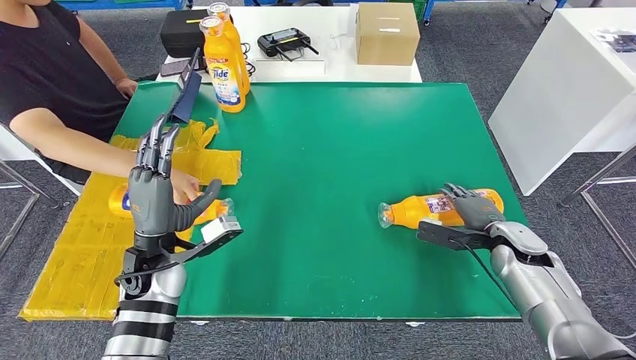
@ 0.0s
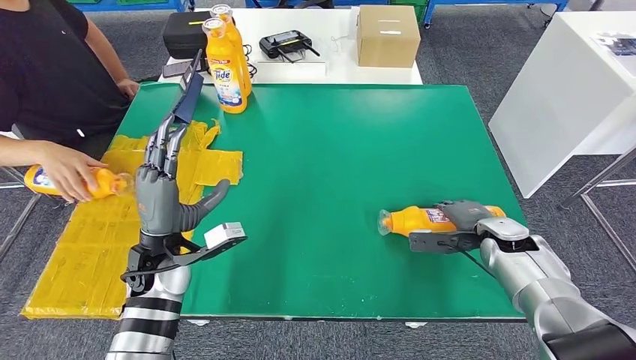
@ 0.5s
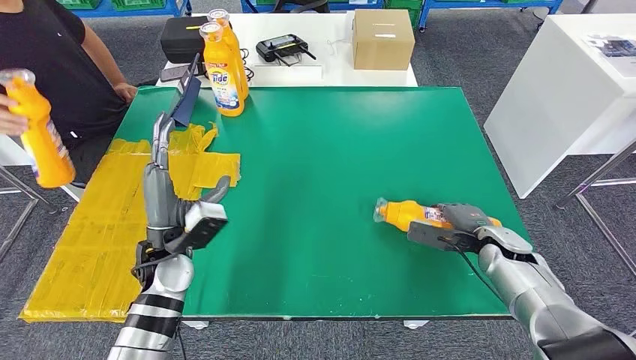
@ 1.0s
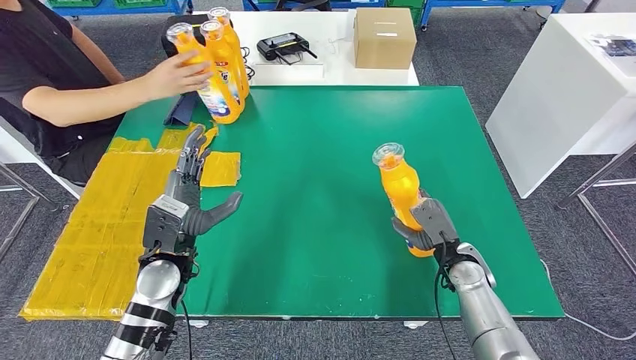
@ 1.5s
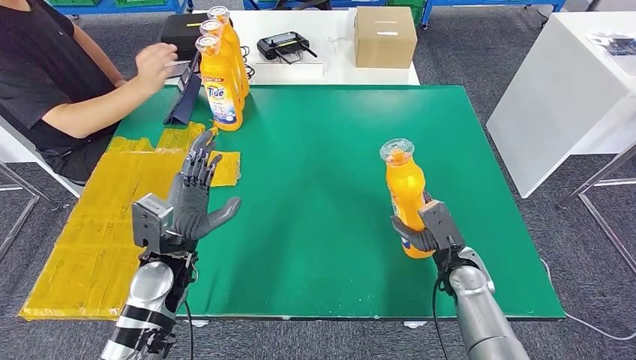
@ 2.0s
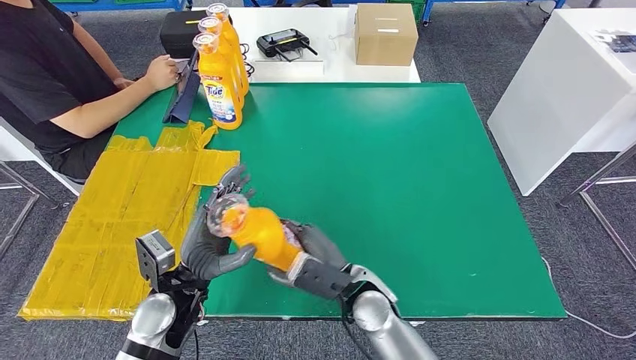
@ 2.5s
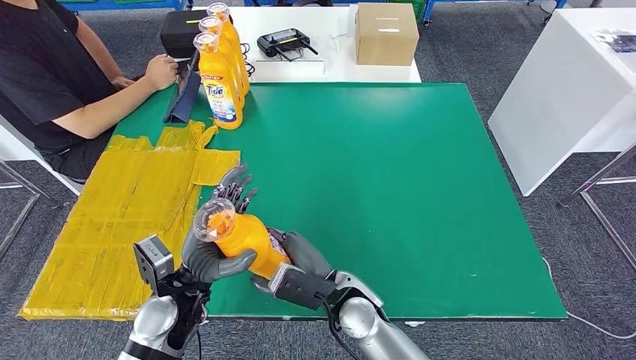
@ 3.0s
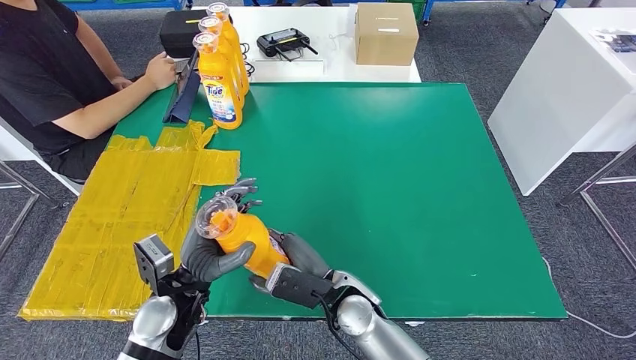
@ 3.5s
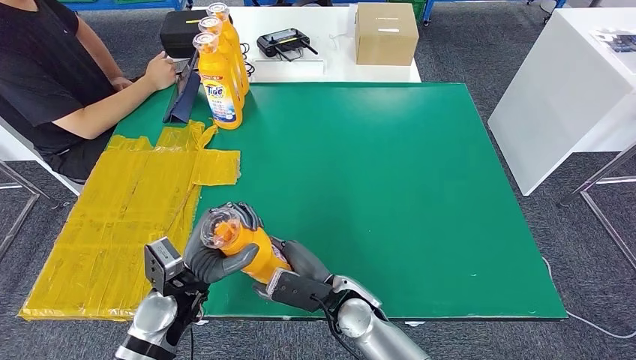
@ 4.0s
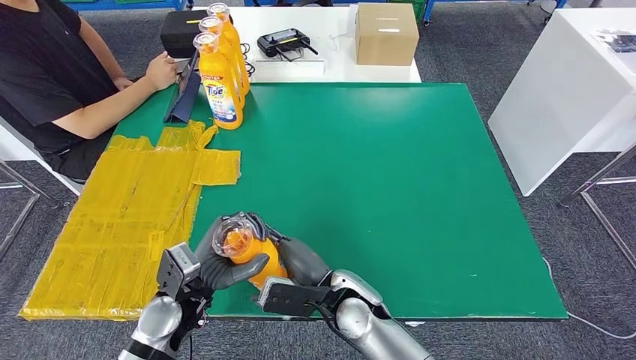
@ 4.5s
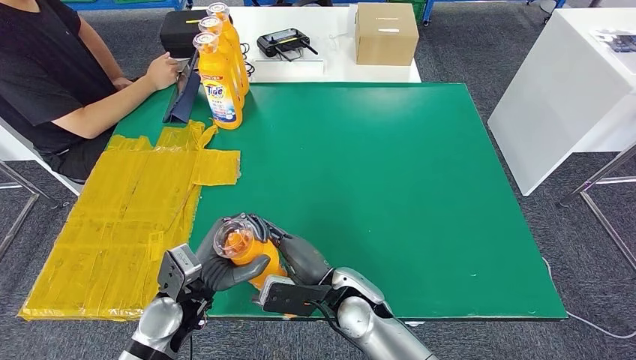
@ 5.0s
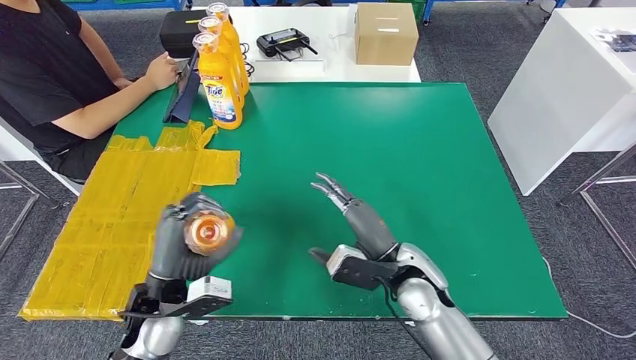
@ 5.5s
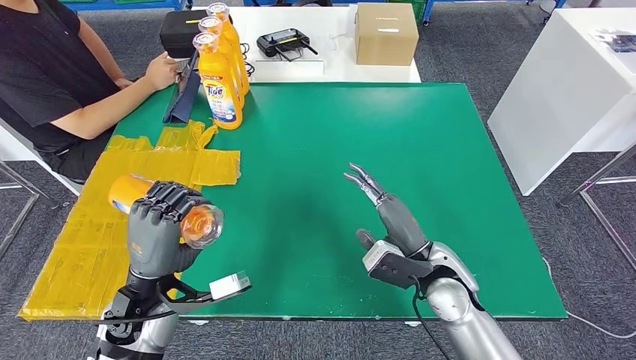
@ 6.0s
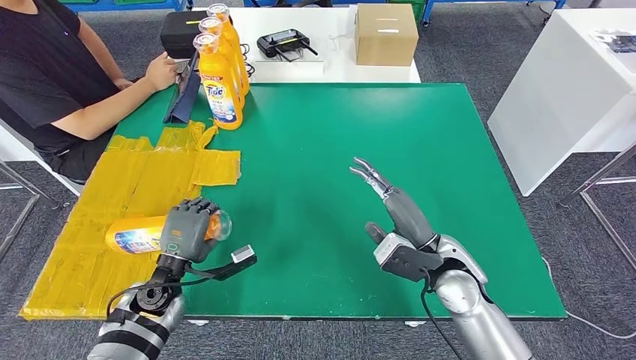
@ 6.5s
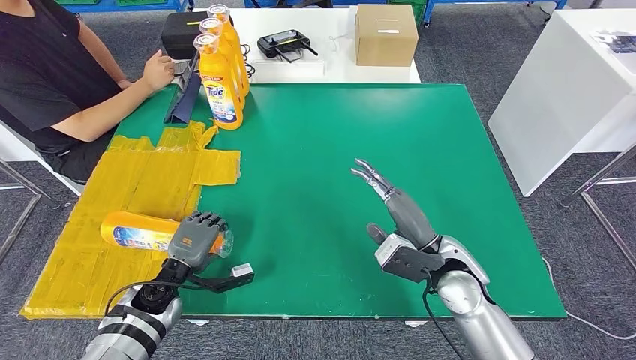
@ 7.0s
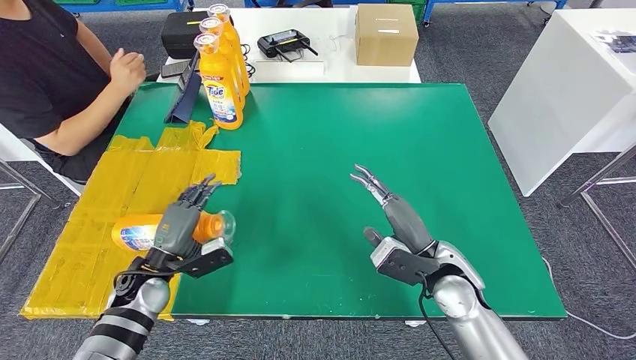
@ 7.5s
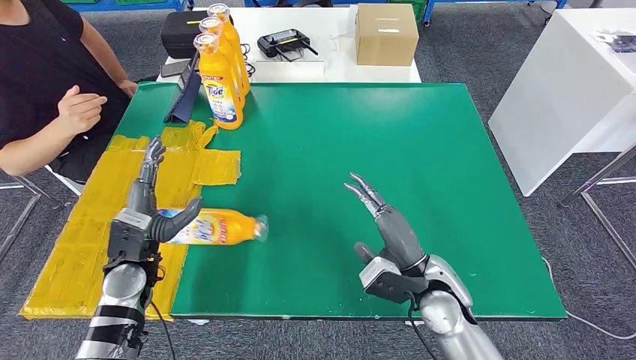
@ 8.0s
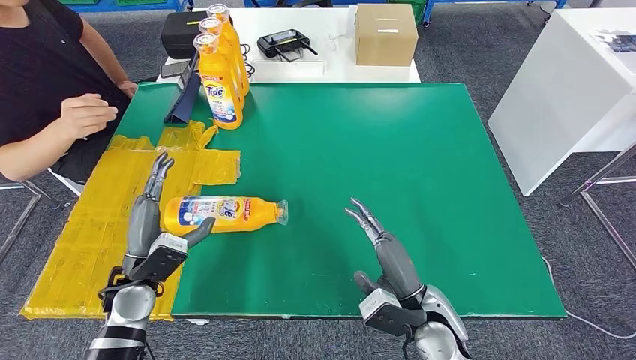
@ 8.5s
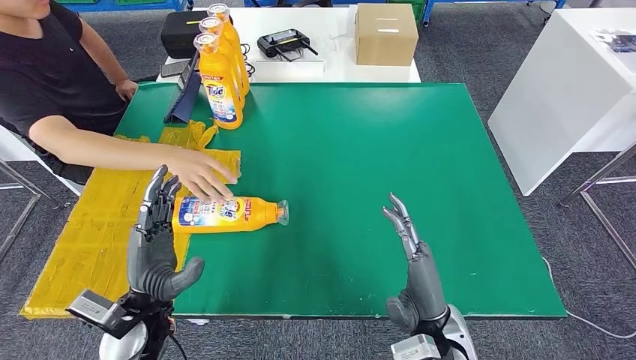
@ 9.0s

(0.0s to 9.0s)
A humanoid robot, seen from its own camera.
Step, 0.5s - 2.5s: Pick up the fast-moving consumer goods bottle from the table.
Step, 3.0s - 9.0s: Flip the fast-moving consumer goods bottle to the front side.
4.5s - 7.0s: The right hand moves to the right, some 15 cm, while the left hand travels downward and to the left by roughly 10 cm.
